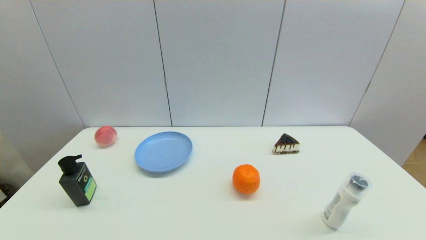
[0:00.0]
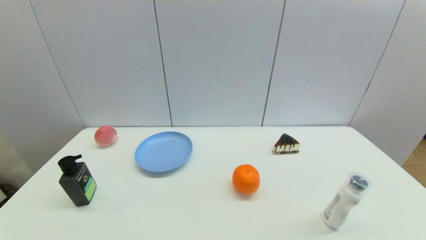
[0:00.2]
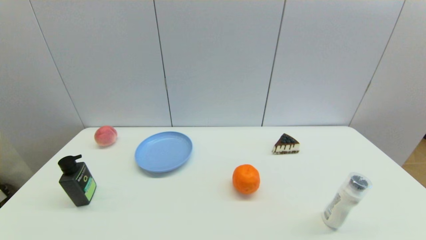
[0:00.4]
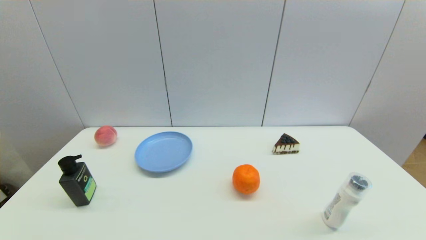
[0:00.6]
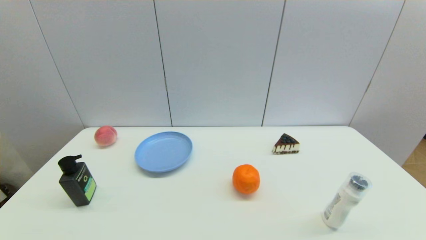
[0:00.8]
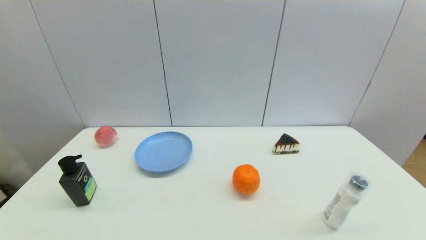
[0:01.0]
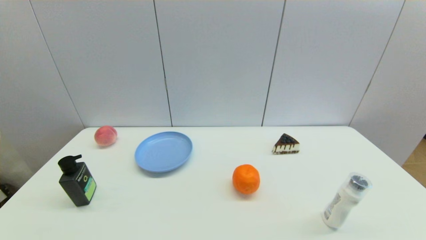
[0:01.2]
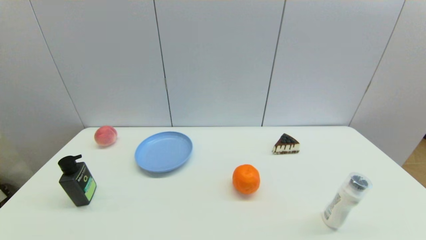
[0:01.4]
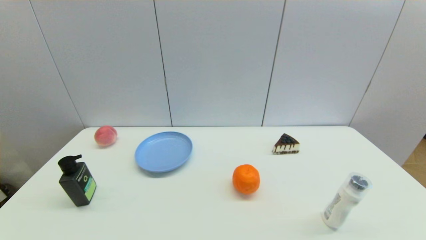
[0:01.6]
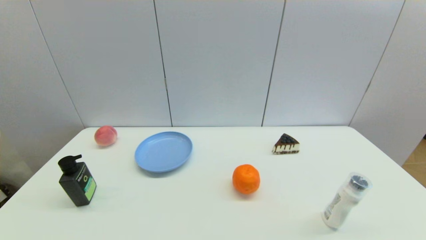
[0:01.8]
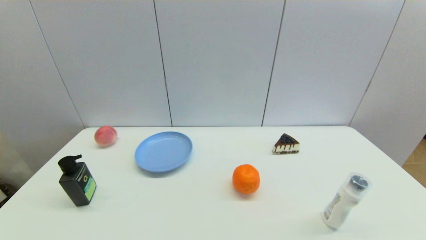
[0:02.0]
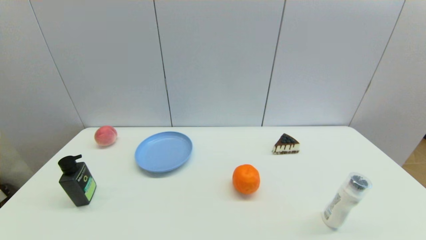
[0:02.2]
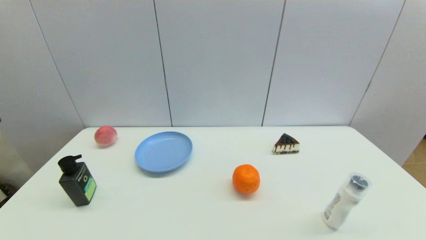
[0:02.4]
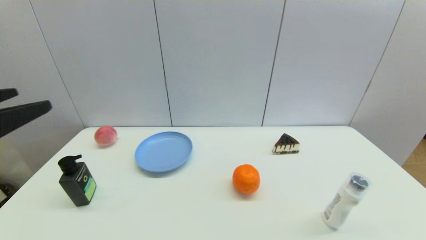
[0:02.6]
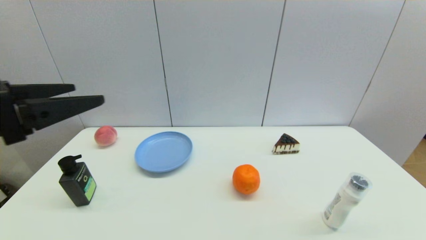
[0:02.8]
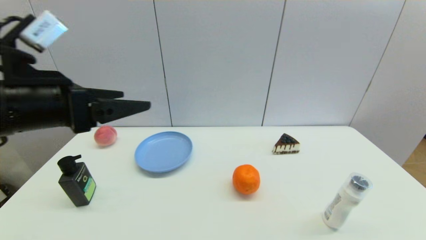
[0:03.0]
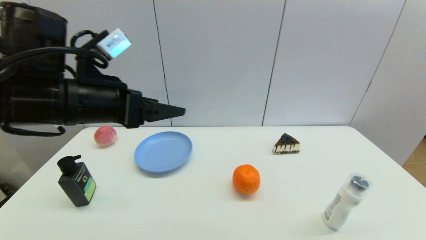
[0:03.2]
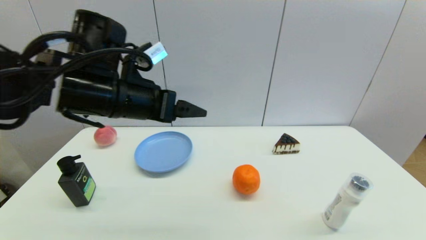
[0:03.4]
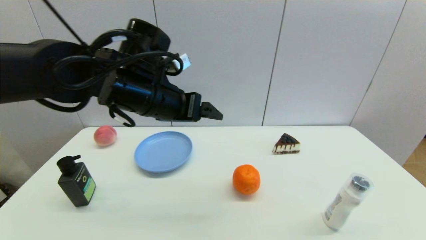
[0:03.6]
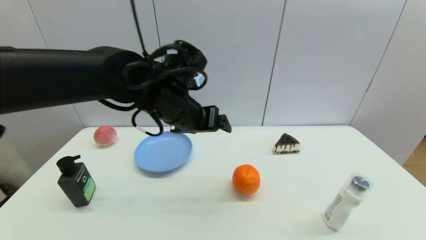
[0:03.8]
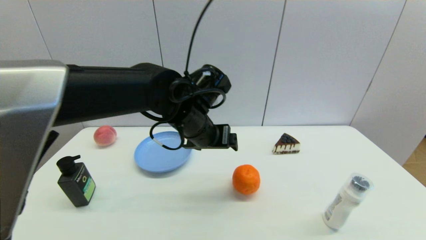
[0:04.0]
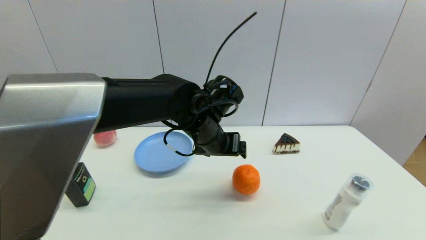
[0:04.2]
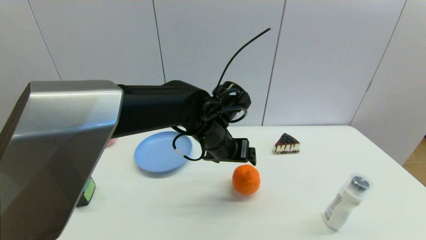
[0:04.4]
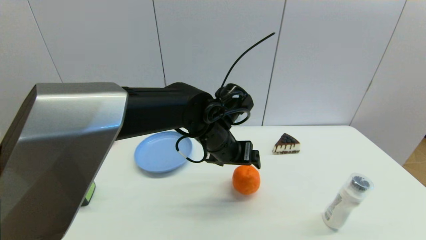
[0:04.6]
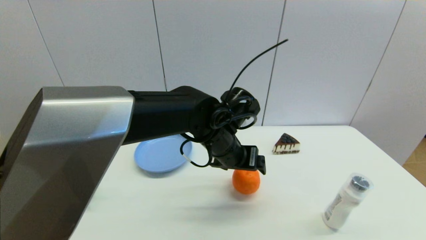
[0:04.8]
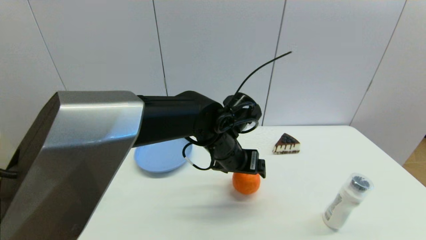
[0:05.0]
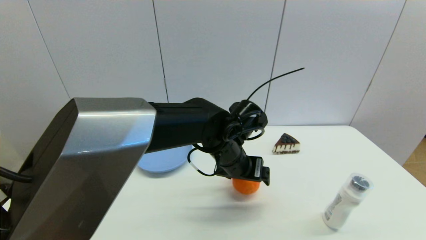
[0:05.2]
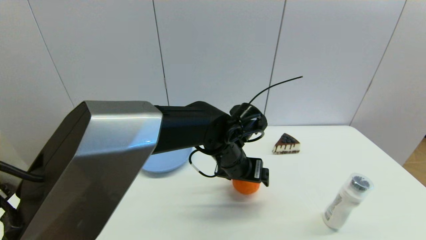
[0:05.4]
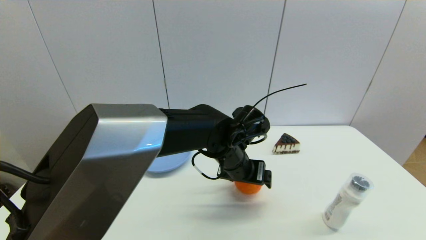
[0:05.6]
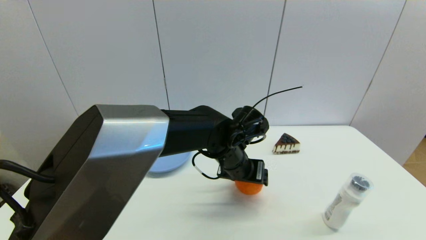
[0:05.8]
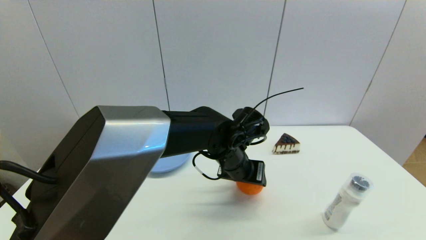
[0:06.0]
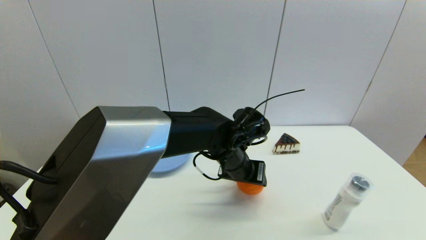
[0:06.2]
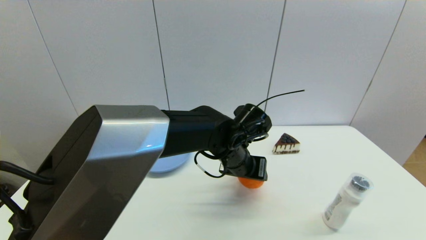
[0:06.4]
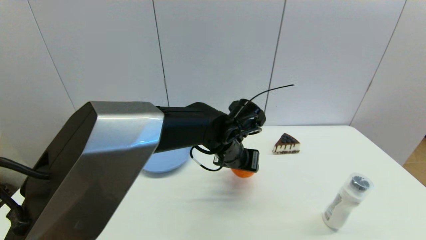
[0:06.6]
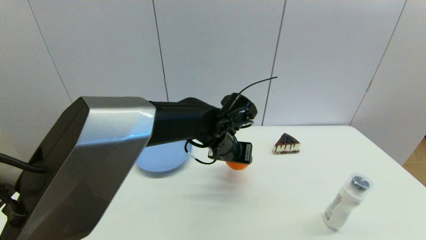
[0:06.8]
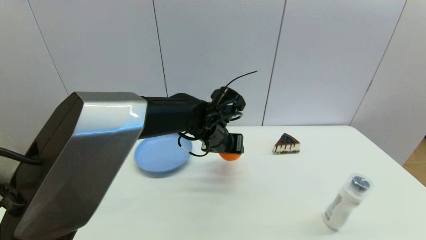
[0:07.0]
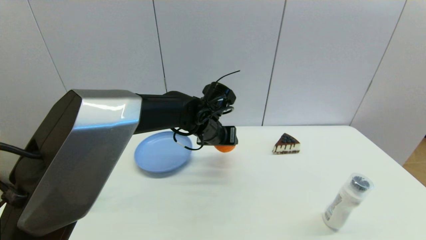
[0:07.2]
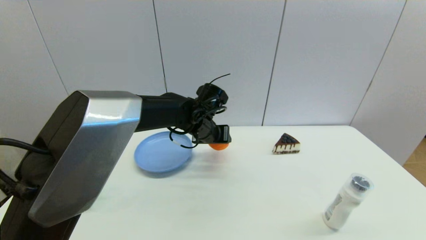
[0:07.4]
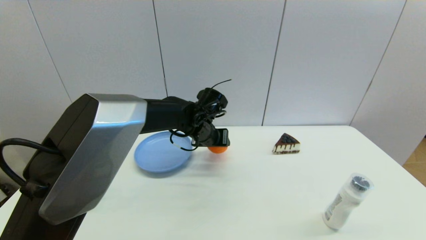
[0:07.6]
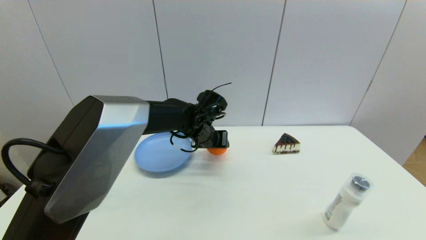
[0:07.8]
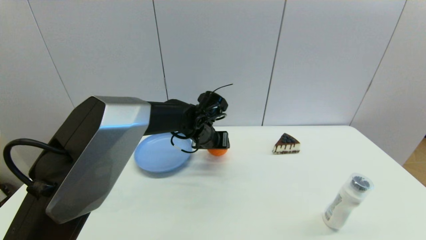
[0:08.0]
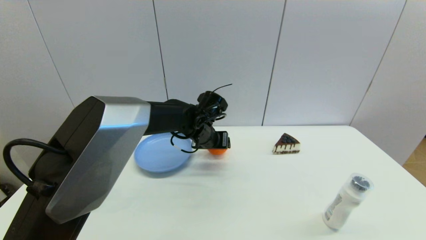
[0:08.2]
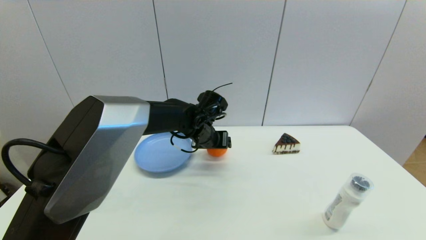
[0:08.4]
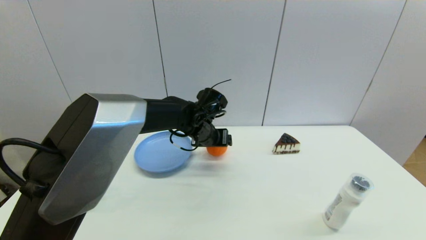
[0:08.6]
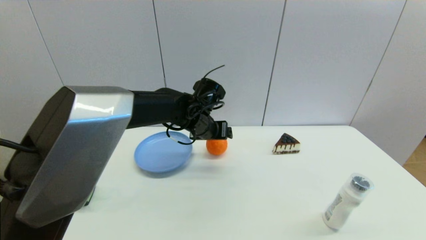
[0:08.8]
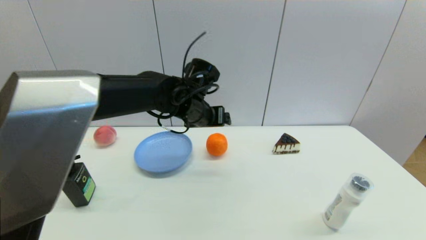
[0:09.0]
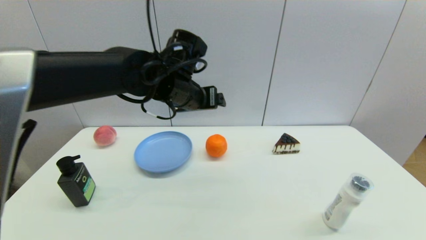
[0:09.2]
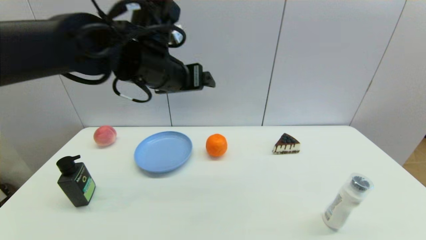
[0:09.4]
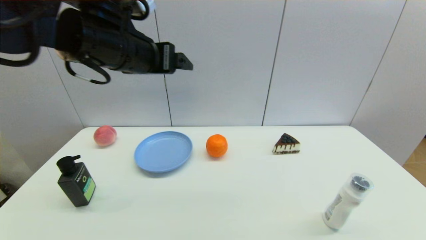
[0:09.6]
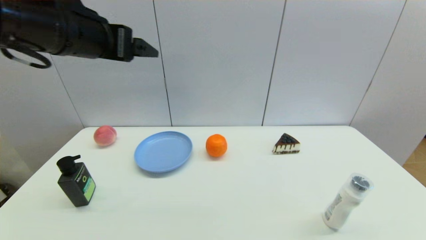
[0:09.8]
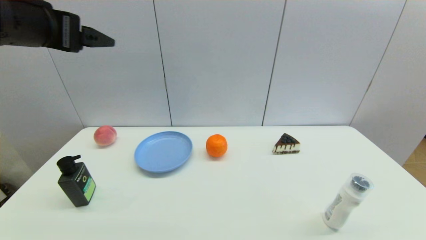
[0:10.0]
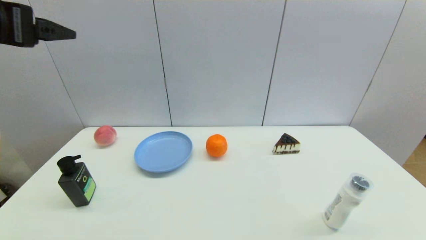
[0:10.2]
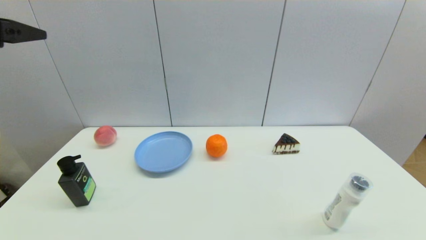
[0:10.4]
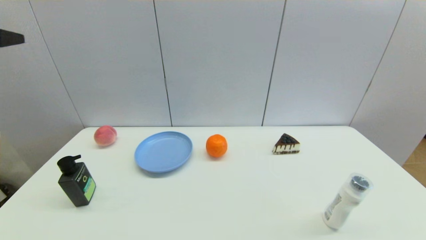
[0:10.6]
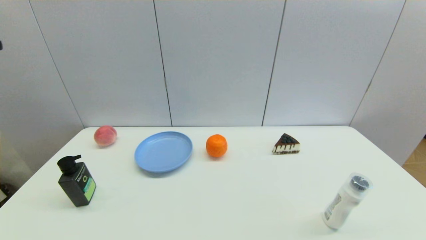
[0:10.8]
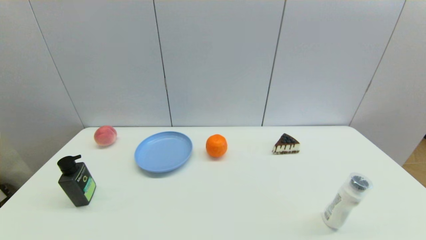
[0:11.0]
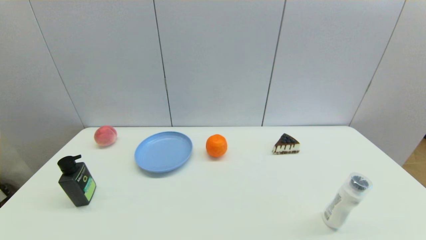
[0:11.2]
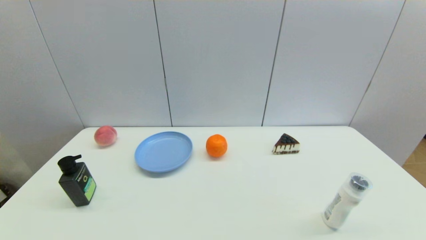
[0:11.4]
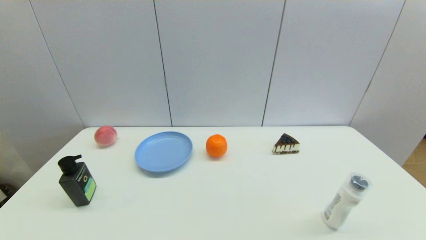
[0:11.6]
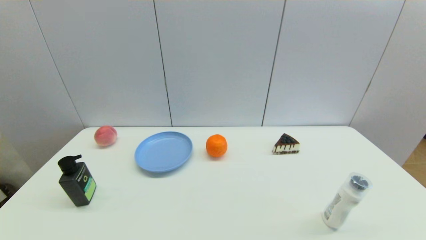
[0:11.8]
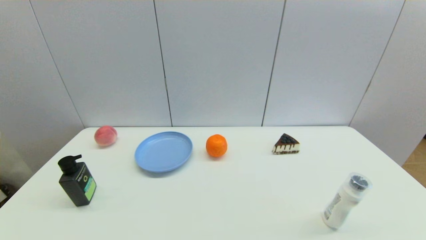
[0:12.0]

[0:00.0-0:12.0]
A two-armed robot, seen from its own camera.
Step, 0:02.4 to 0:06.0: Grasp the orange with left gripper.
Step, 0:06.4 to 0:08.6: Place the orange on the table with left gripper.
0:01.6 to 0:03.0: The left gripper goes about 30 cm forward and upward.
0:03.0 to 0:04.4: The left gripper travels to the right, downward and forward by about 30 cm.
0:04.4 to 0:06.0: The left gripper ends up approximately 5 cm from where it was, and closes its fingers.
0:06.0 to 0:07.6: The left gripper heads forward and to the left, covering some 10 cm.
0:07.6 to 0:09.0: The left gripper shifts approximately 5 cm upward, and opens.
0:09.0 to 0:10.4: The left gripper travels to the left, backward and upward by roughly 35 cm.
0:10.4 to 0:12.0: The left gripper goes approximately 25 cm backward and downward.

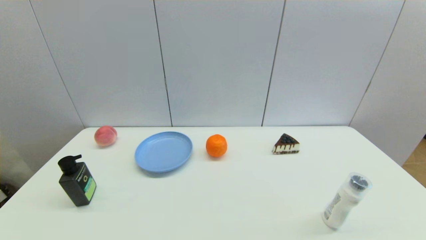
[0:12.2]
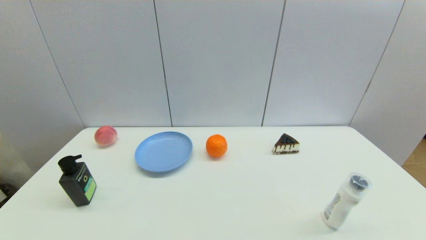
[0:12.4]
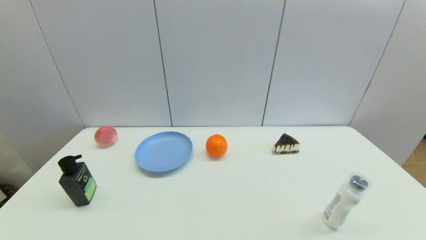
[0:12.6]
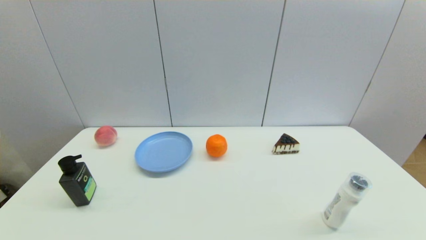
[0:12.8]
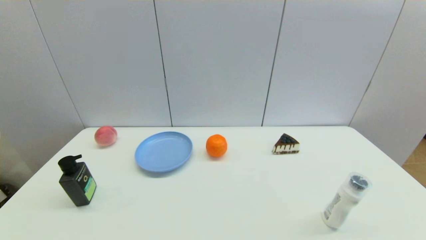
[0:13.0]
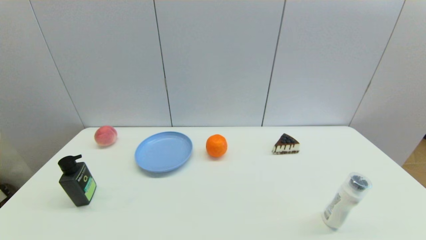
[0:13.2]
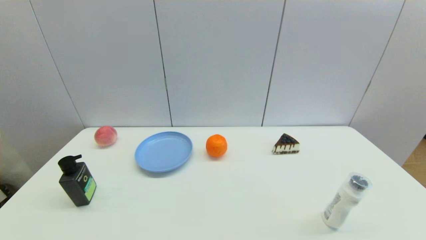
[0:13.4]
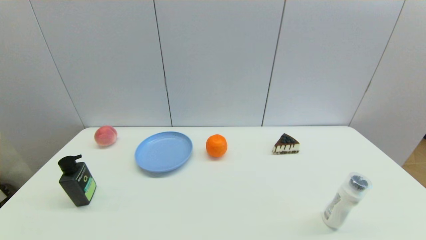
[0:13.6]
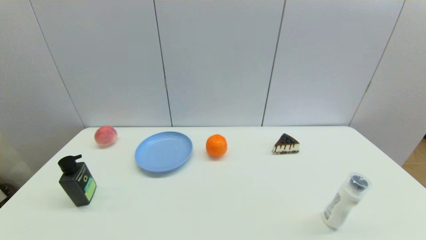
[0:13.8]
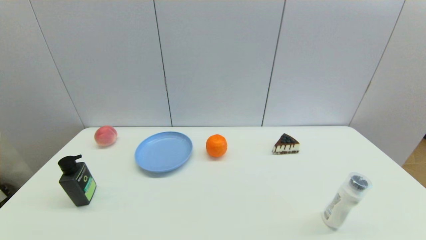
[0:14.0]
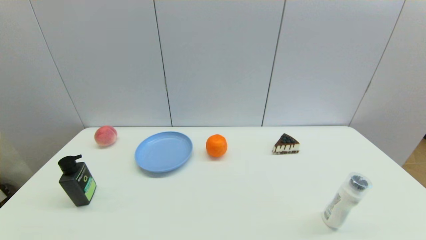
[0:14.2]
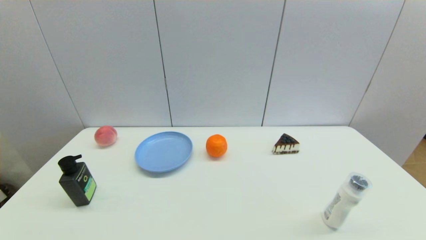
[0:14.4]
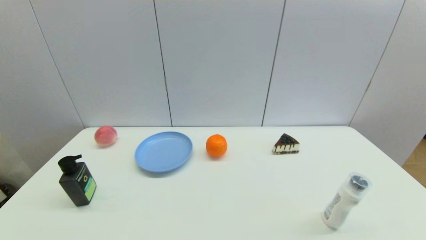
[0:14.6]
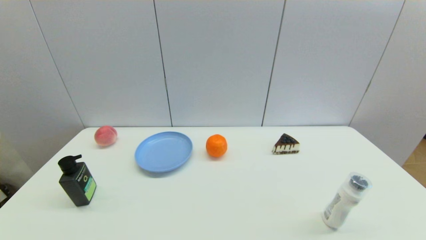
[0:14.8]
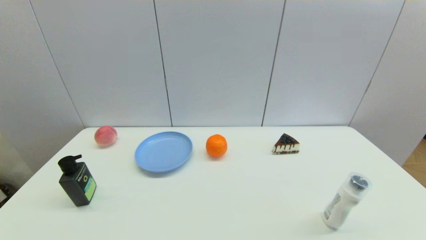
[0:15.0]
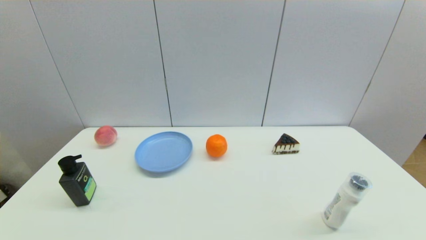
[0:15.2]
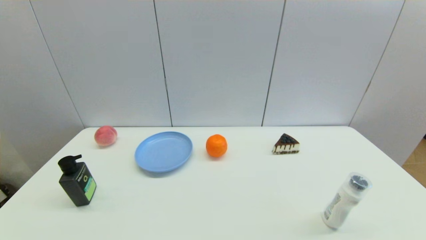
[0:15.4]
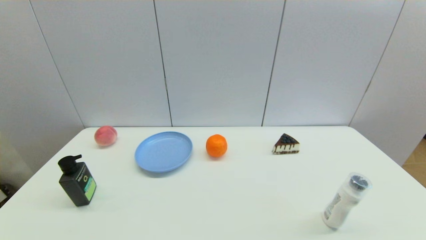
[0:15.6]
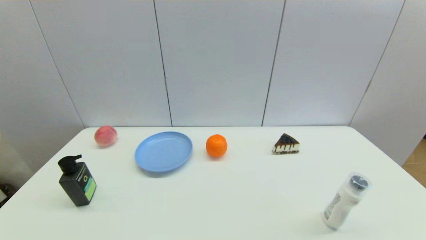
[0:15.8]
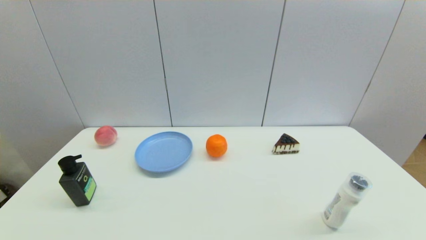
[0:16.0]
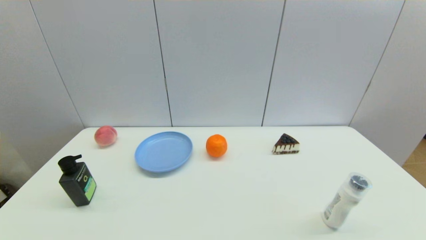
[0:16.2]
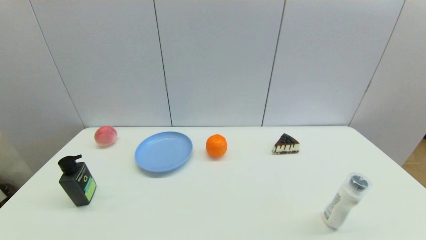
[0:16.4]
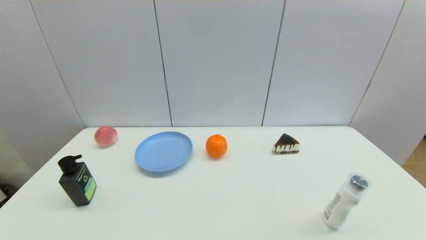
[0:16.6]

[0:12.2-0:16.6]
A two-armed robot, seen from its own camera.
0:15.2 to 0:16.6: Both grippers stay put.
